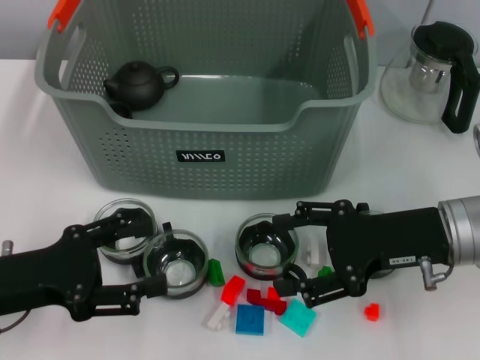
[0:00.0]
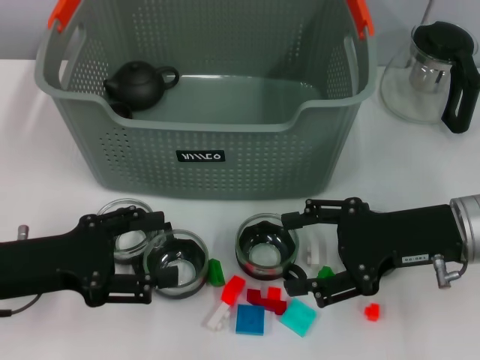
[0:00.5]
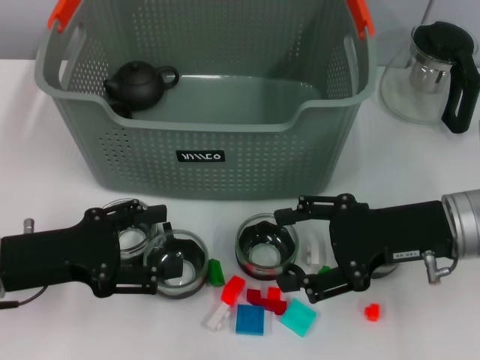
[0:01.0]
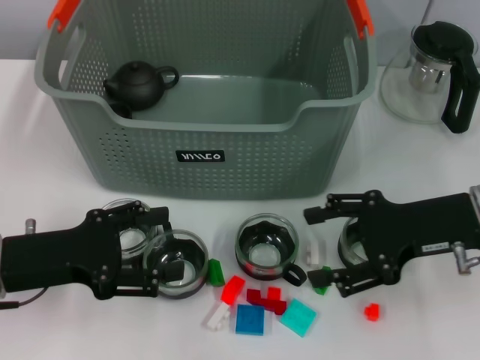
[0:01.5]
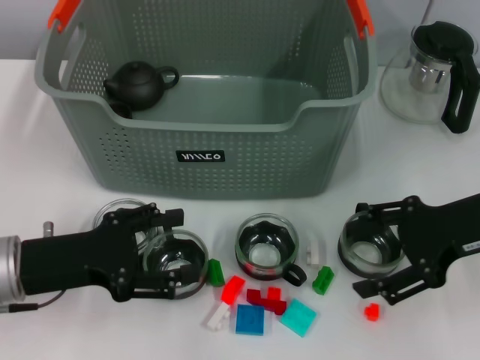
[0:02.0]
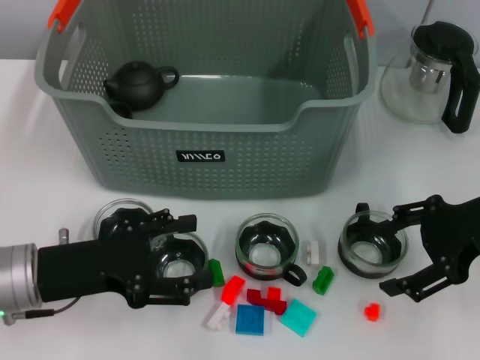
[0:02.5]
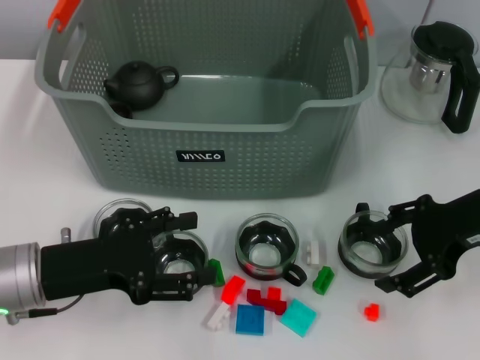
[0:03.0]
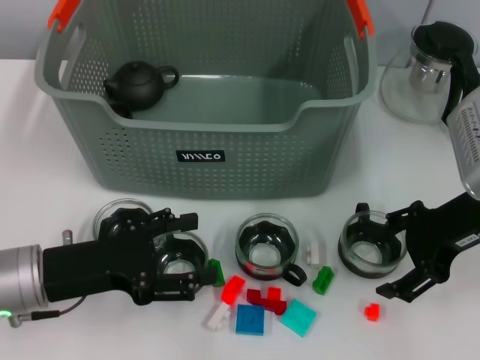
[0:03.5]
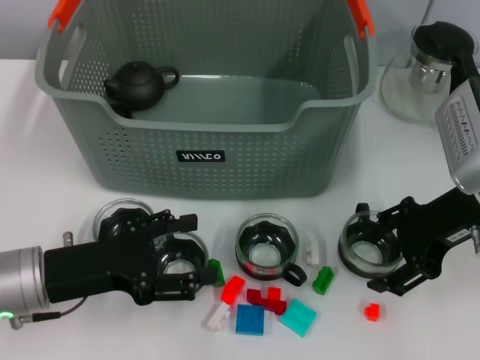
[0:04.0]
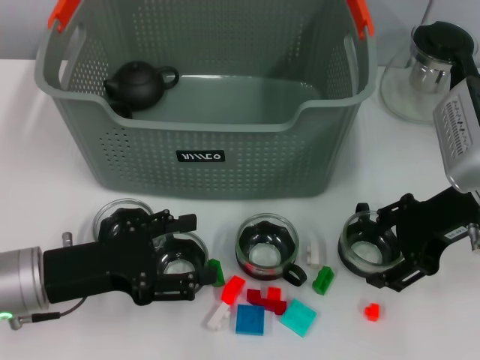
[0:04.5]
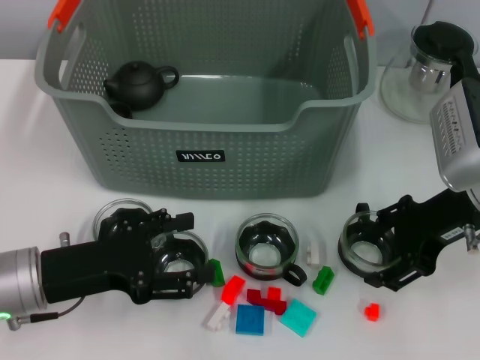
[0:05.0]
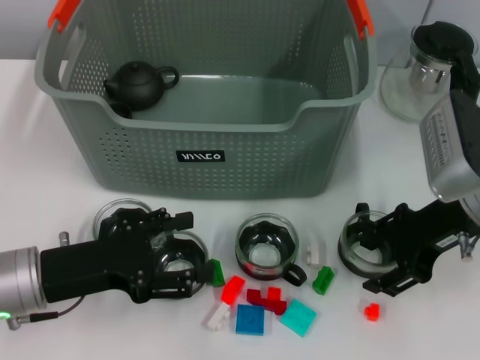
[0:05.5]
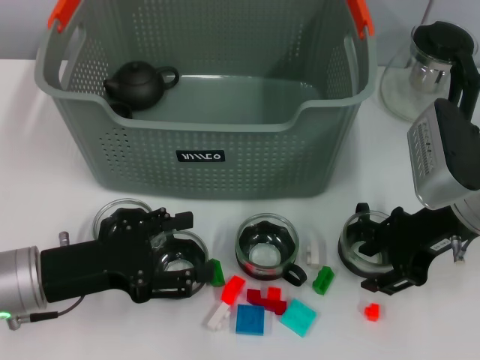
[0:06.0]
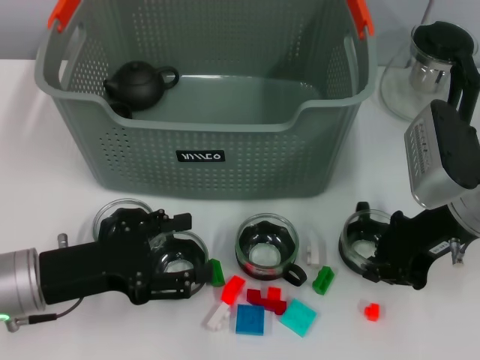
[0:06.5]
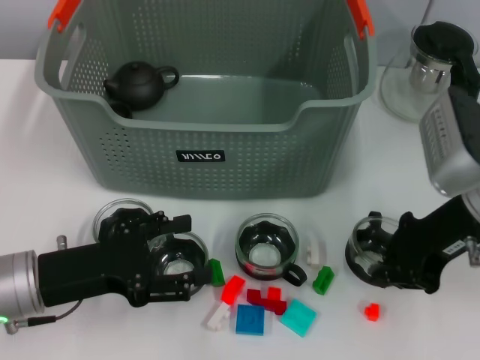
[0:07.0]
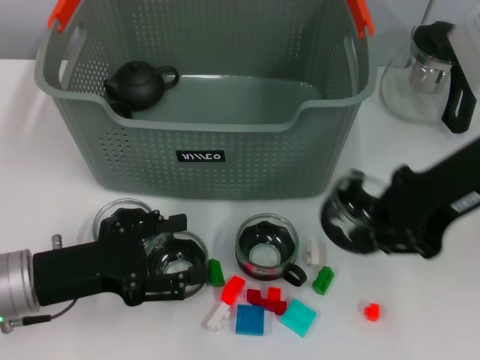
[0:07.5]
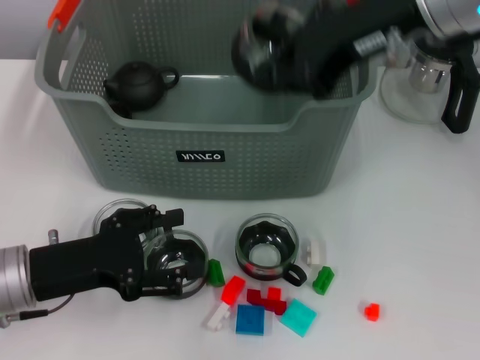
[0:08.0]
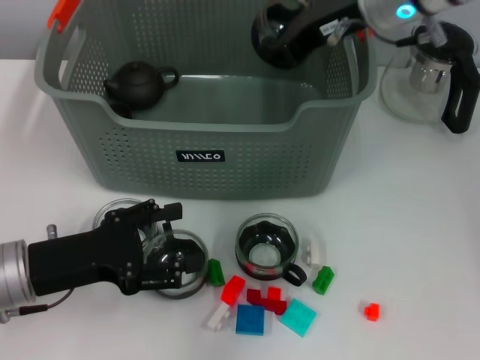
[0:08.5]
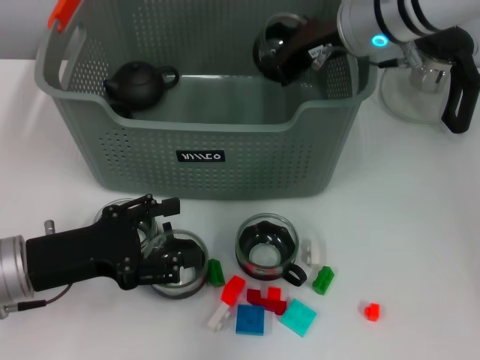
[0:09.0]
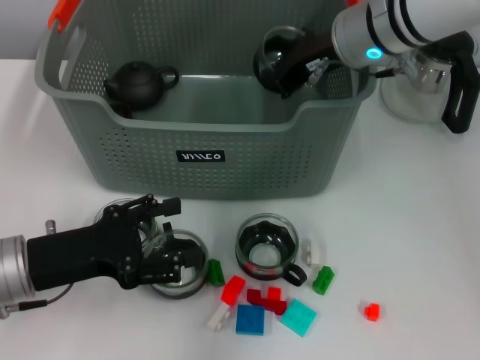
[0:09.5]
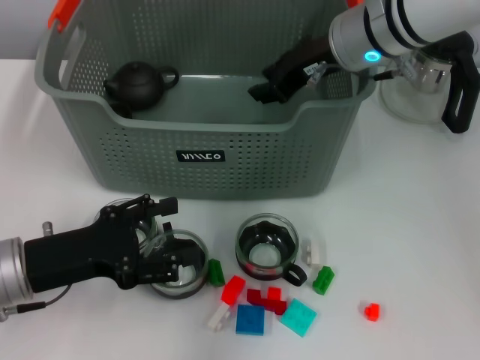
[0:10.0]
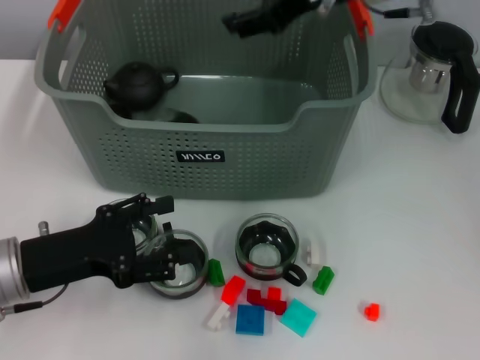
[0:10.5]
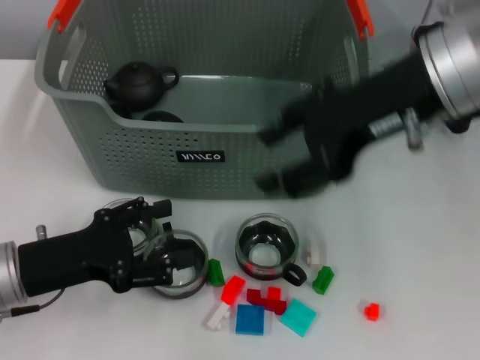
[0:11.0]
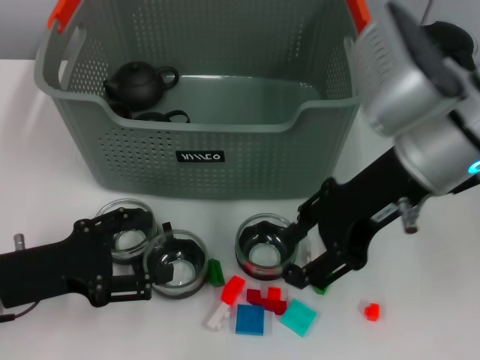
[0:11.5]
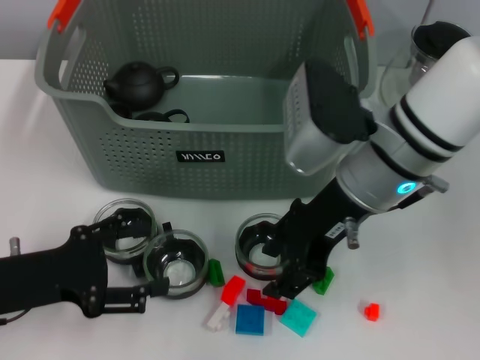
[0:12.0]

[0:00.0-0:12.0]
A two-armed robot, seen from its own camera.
Task of the whole recording: pick up the teacup on the table and place it into the storage bin, pick up the block on the table and place it into the storage bin.
Step, 0:00.0 to 0:06.5: Grasp the cup with right gripper.
Step, 0:07.0 to 0:10.5: Place the cup in the storage box with right gripper.
0:00.0 to 0:02.0: The right gripper shifts by roughly 5 cm.
0:04.0 to 0:06.0: The grippers move only a little.
0:06.0 to 0:08.0: The right gripper shifts about 20 cm upward and to the left, and closes its fingers.
0:08.0 to 0:10.0: The right gripper travels downward and forward by roughly 15 cm.
0:10.0 to 0:12.0: The right gripper heads backward, covering roughly 10 cm, and opens up.

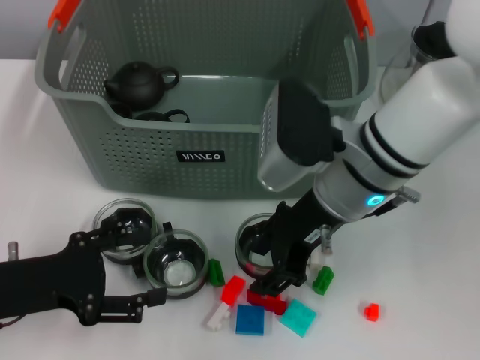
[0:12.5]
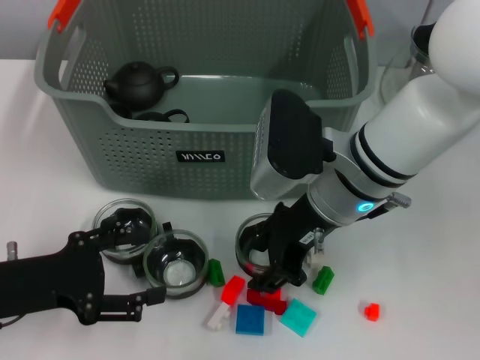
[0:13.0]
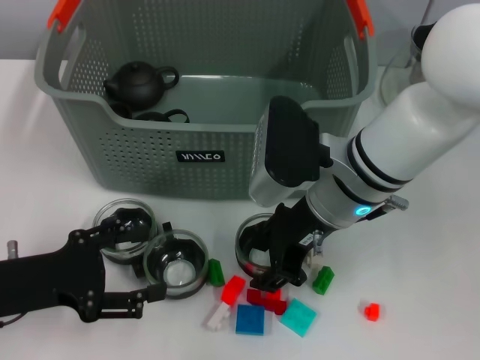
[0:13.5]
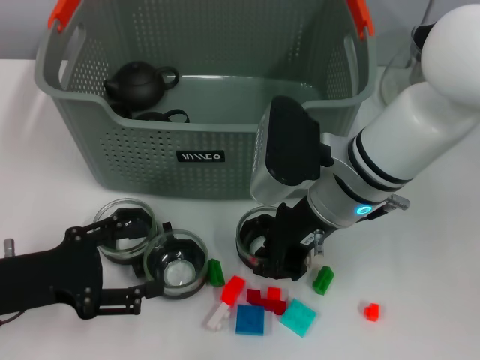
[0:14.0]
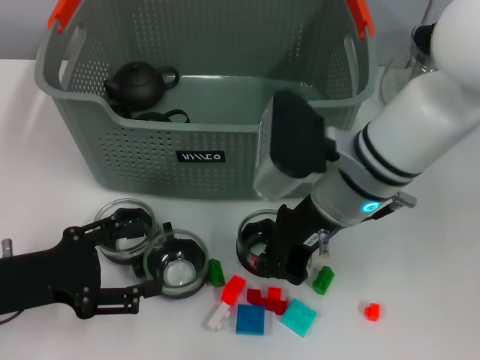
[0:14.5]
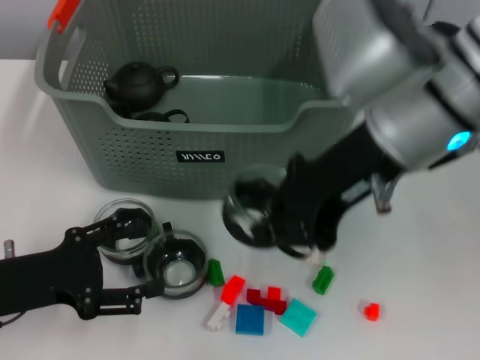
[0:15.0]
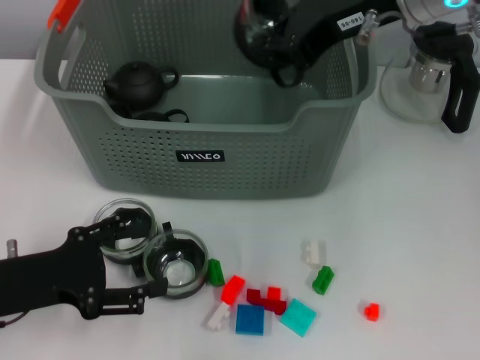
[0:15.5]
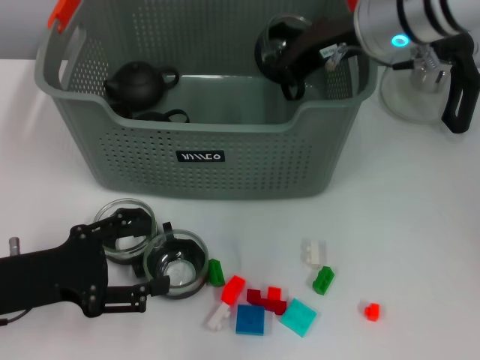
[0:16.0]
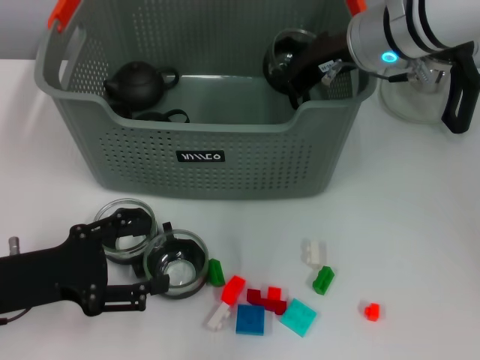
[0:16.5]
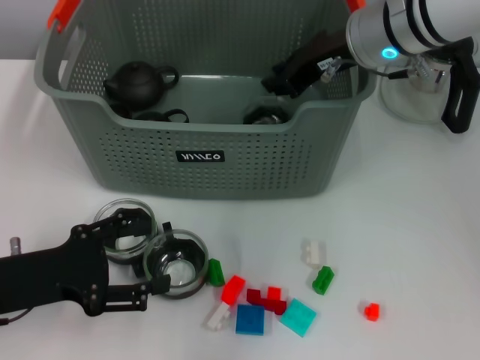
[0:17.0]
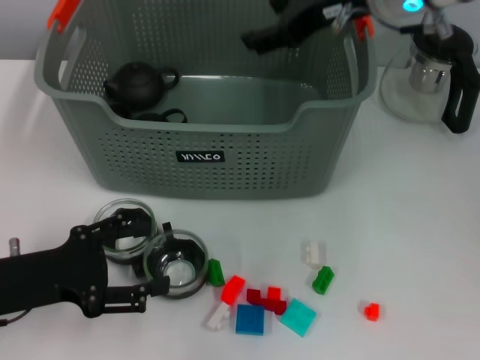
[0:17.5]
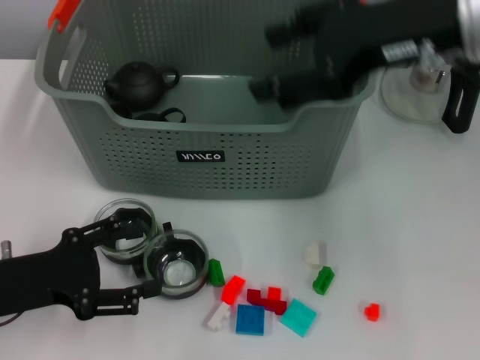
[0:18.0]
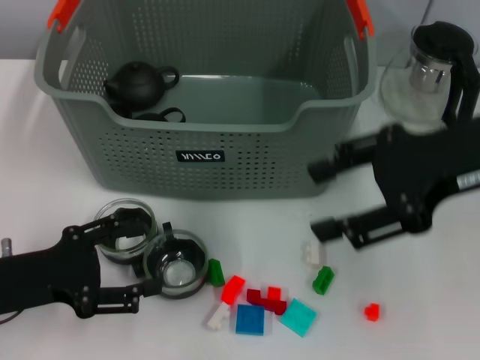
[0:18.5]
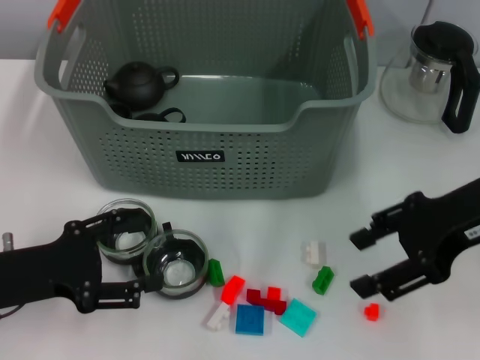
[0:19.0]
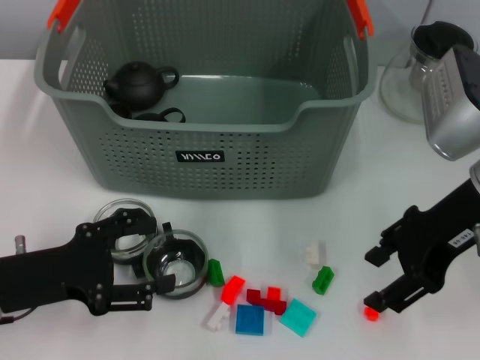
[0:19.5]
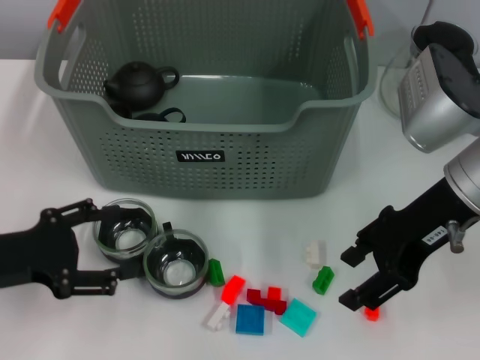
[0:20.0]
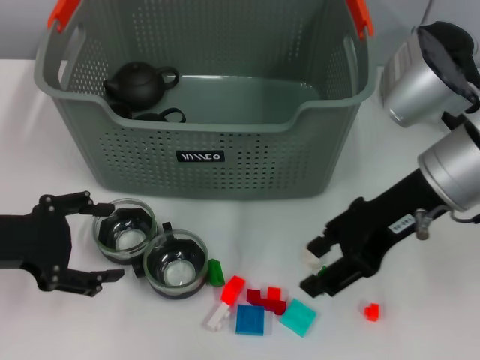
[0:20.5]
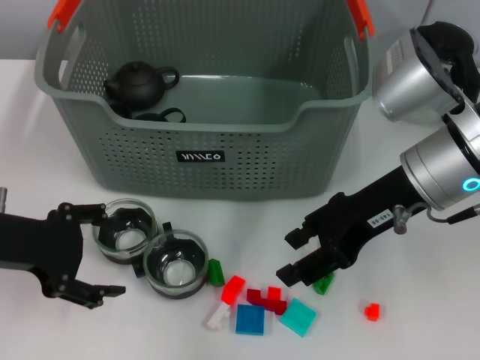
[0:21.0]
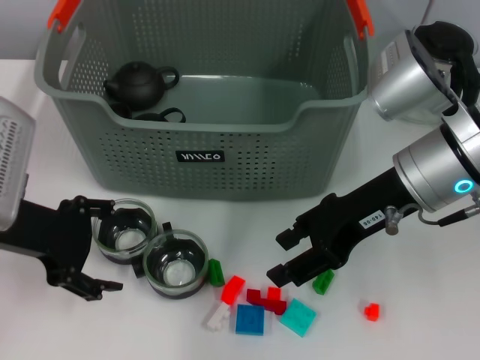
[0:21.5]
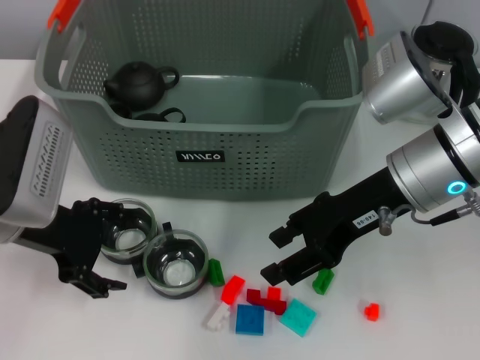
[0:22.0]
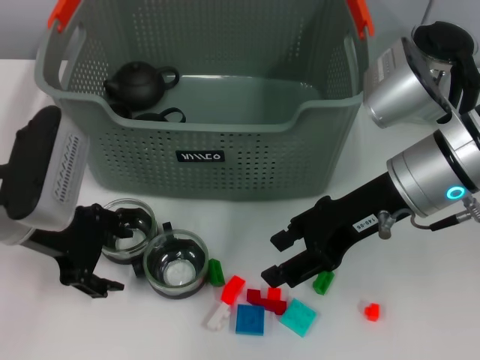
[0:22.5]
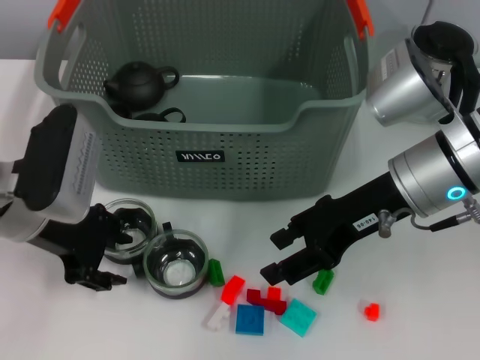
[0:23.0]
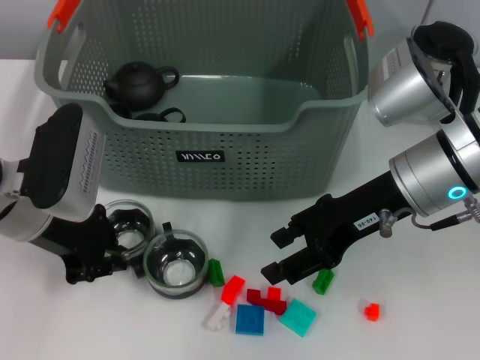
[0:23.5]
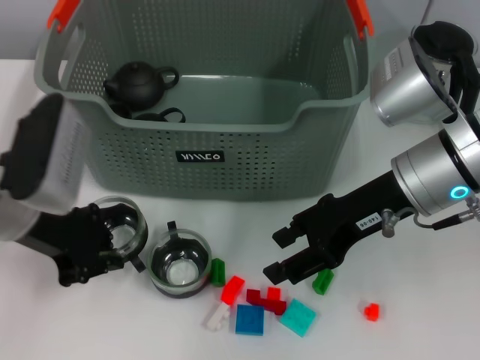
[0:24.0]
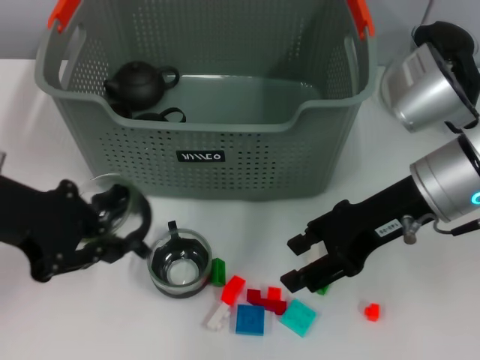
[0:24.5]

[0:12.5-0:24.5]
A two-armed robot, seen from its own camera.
Task of the whole recording: pick up the teacup on the table and place it into the storage bin, pick up the block on the table and place it into the storage bin.
Step, 0:14.5 to 0:17.5: Place the cup in the storage box with right gripper.
Step, 0:18.0 to 0:23.5: Grasp the cup with left gripper.
0:12.5 to 0:14.5: The right gripper closes.
0:14.5 to 0:16.5: The right gripper shifts approximately 10 cm forward and upward.
0:16.5 to 0:18.5: The right gripper moves backward and to the right, about 15 cm, and opens its fingers.
0:18.5 to 0:20.5: The left gripper shifts about 5 cm upward. Meanwhile the right gripper moves downward, roughly 5 cm.
0:20.5 to 0:22.5: The left gripper moves to the right and forward, approximately 10 cm.
0:22.5 to 0:24.5: The left gripper shifts some 10 cm upward, and closes its fingers.

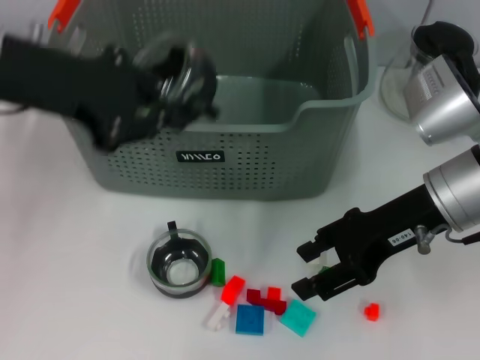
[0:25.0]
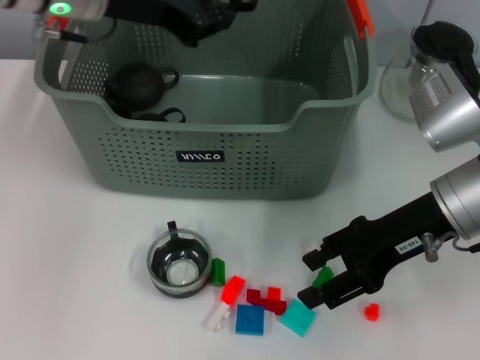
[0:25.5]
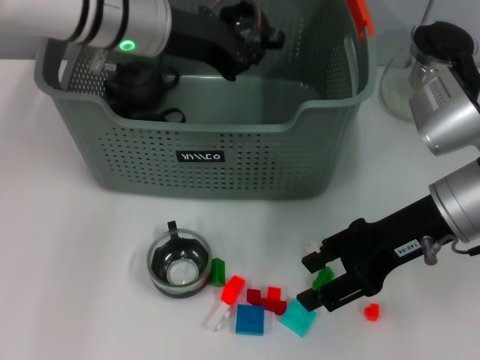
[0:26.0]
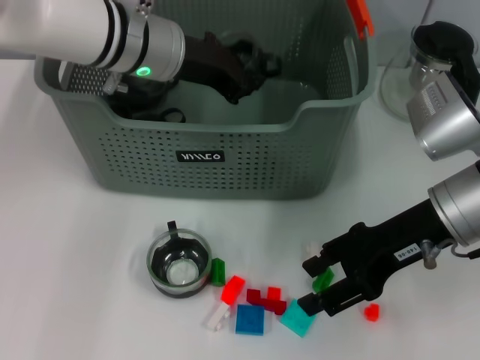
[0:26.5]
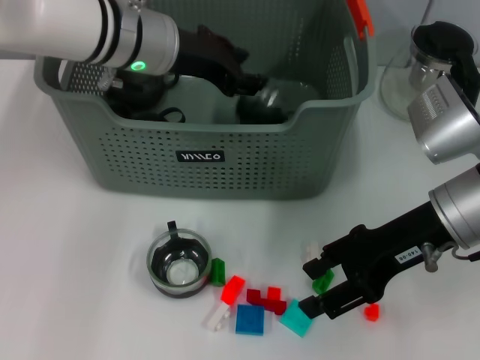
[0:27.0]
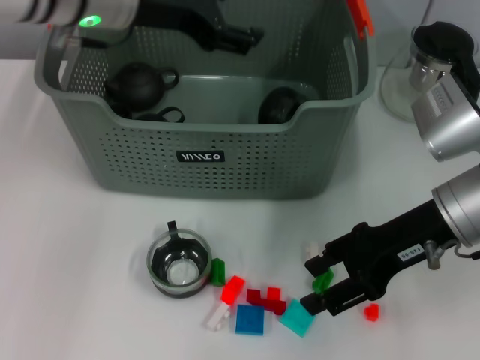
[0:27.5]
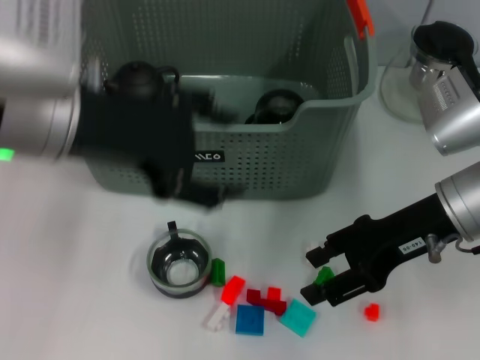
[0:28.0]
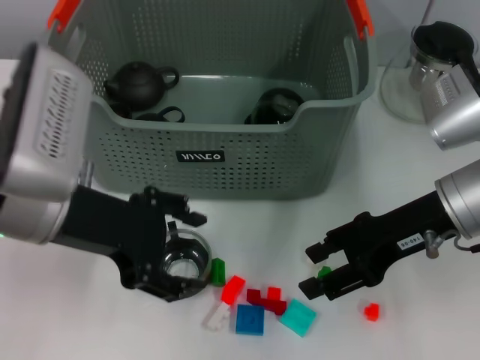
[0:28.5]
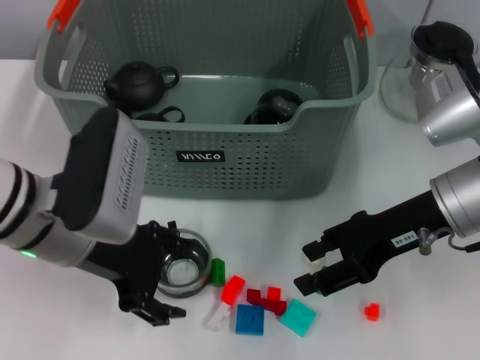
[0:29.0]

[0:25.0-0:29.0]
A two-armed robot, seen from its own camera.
Task of the whole recording: pick up the teacup on the table and place it into the storage bin, pick up the block on the table and place it into the storage bin.
Step, 0:25.0 to 0:27.5: Place the cup in the storage box with left gripper.
0:25.0 to 0:27.0: The left gripper shifts some 15 cm to the right, forward and downward.
0:27.0 to 0:29.0: The left gripper travels backward by about 15 cm, and opens up.
